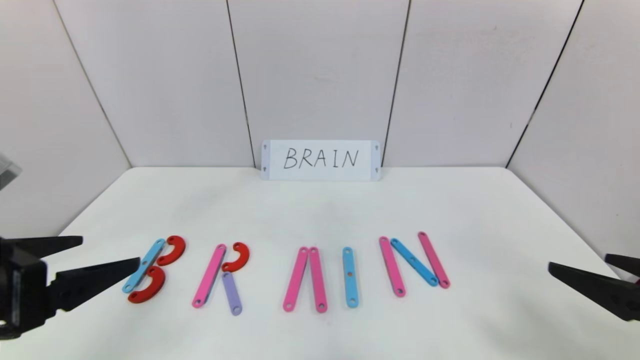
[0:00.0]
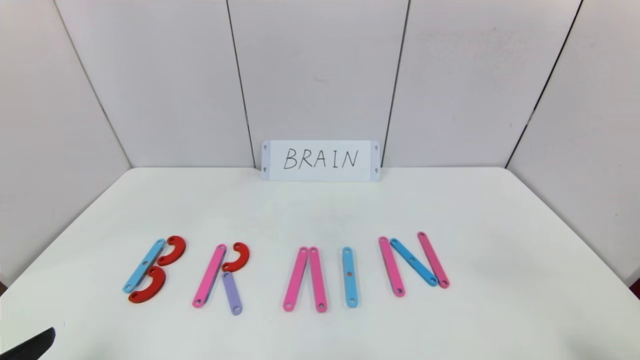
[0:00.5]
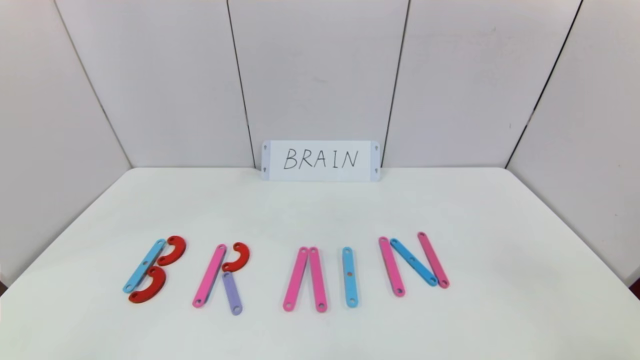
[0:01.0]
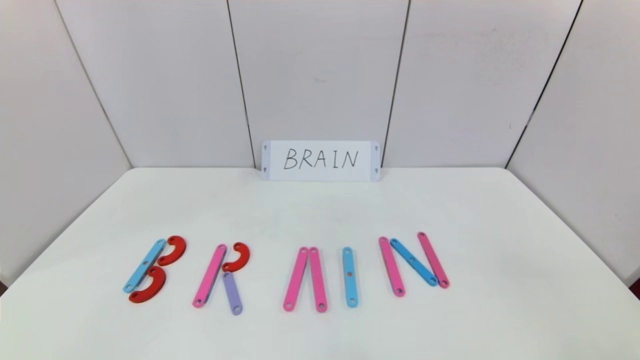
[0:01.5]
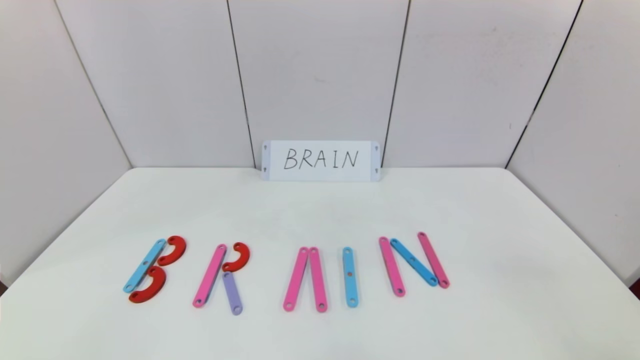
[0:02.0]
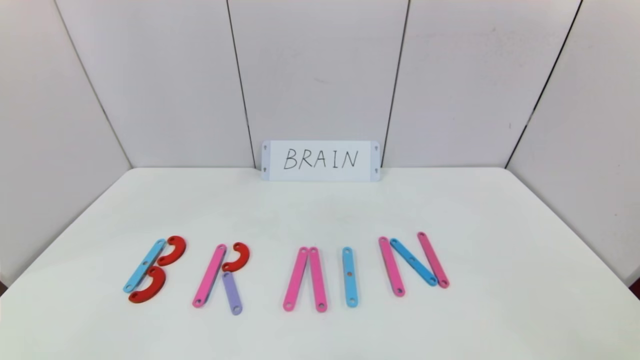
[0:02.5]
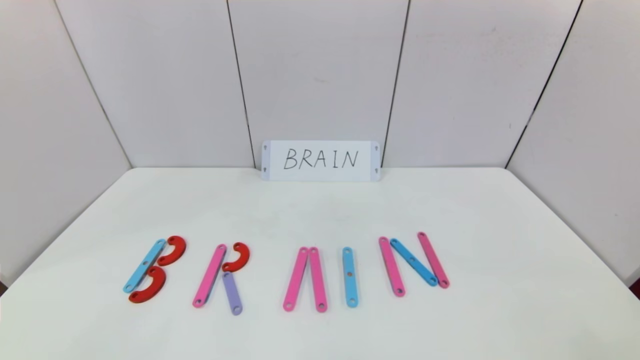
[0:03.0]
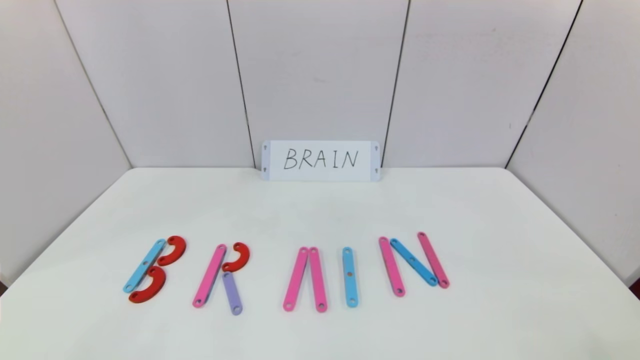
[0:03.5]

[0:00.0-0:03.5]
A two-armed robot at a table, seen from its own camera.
Task of the whole recording: rearrange the word baai as brain.
0:00.0 to 0:02.0: The left gripper moves backward and downward, roughly 20 cm; the right gripper heads backward, covering some 15 cm.
